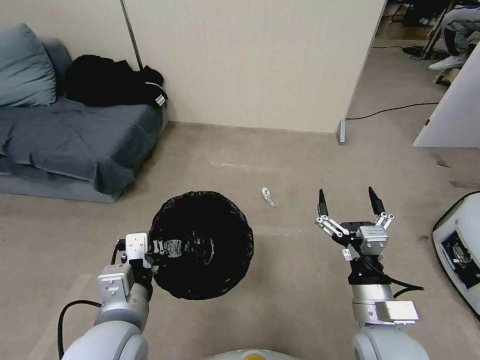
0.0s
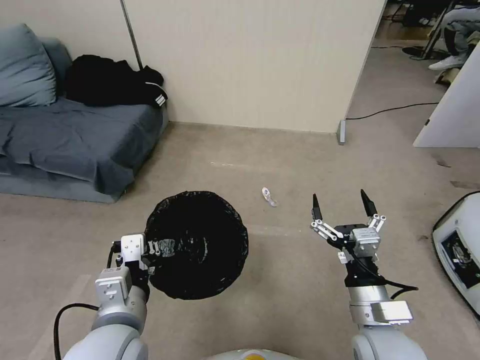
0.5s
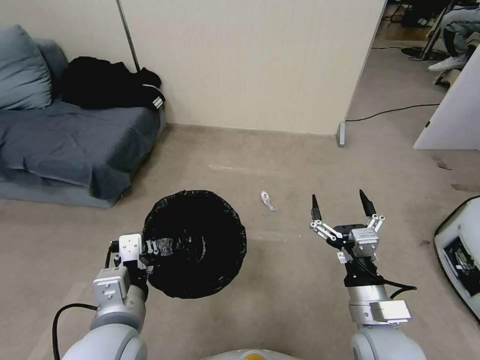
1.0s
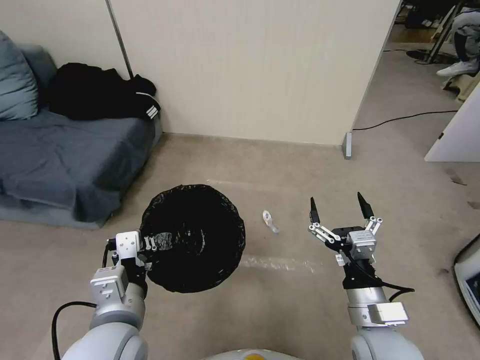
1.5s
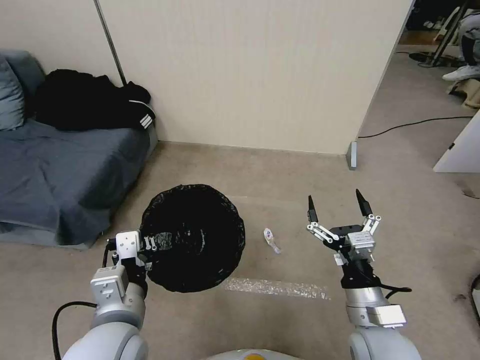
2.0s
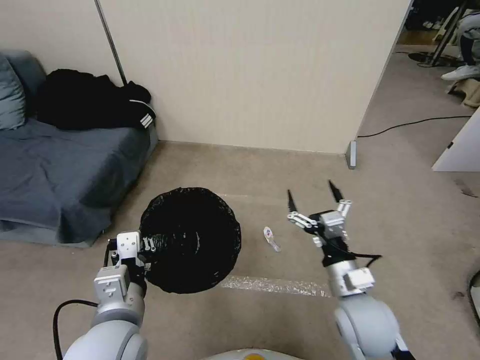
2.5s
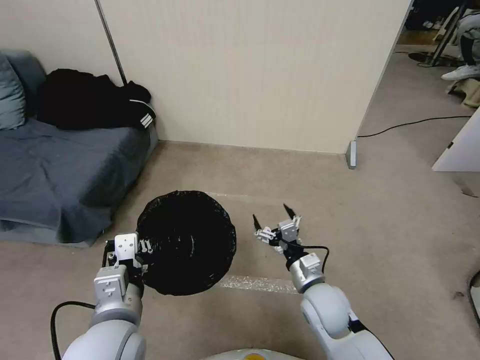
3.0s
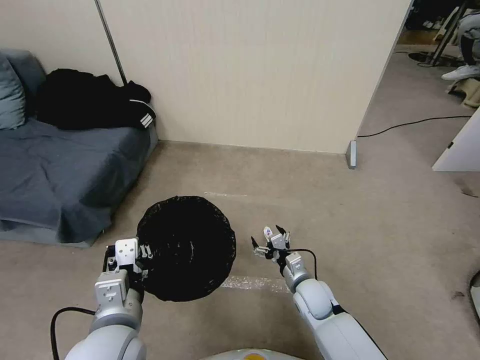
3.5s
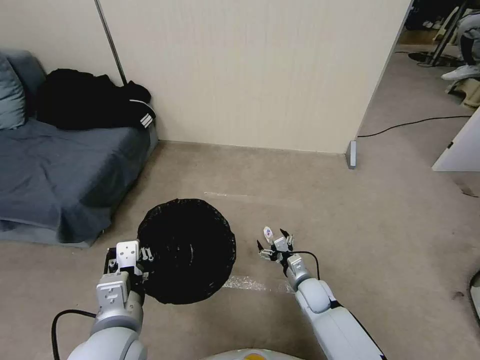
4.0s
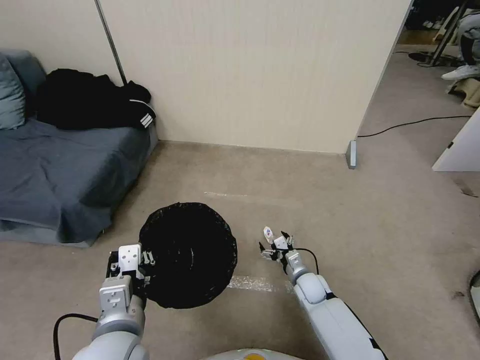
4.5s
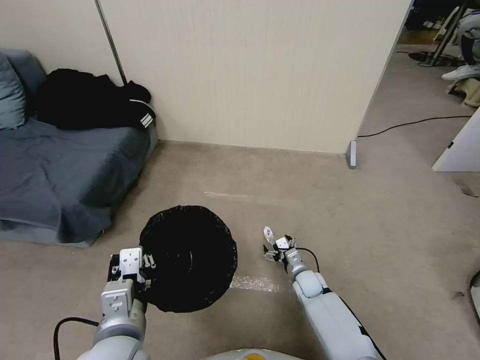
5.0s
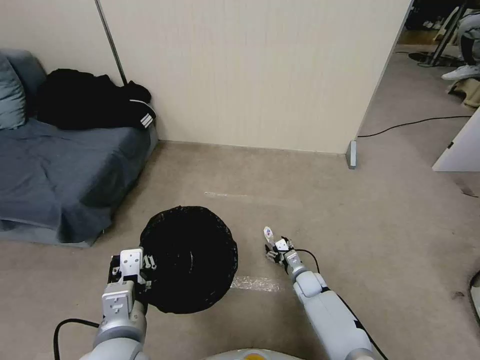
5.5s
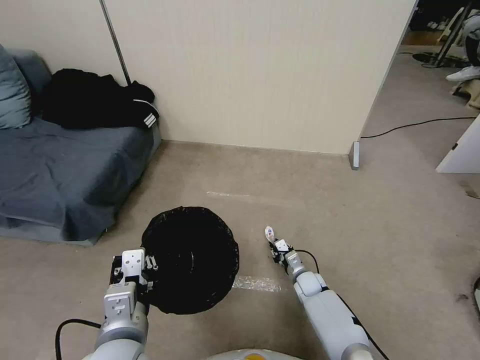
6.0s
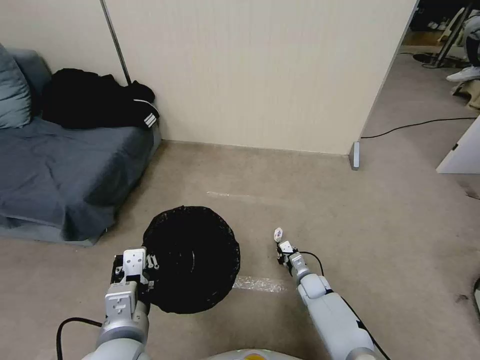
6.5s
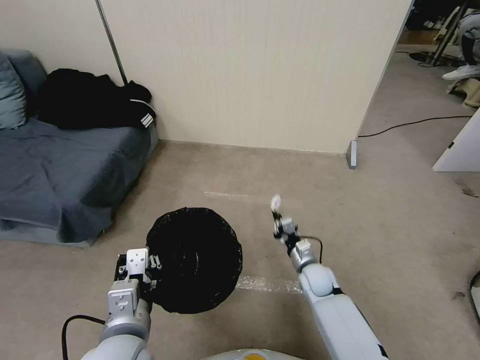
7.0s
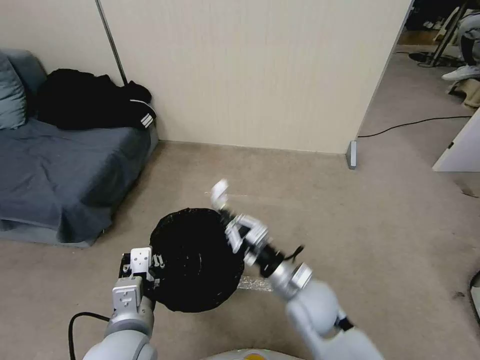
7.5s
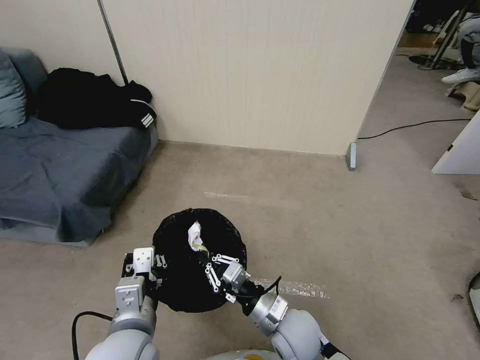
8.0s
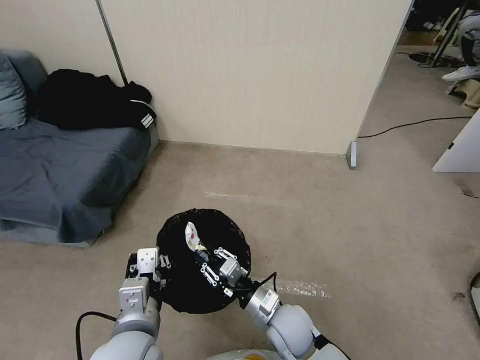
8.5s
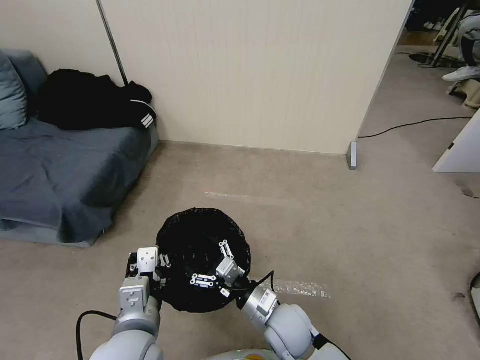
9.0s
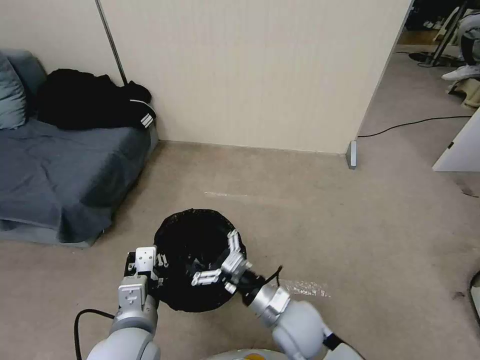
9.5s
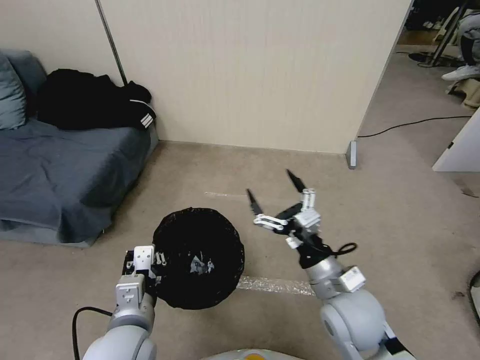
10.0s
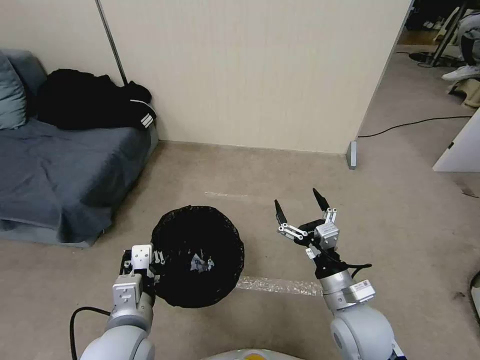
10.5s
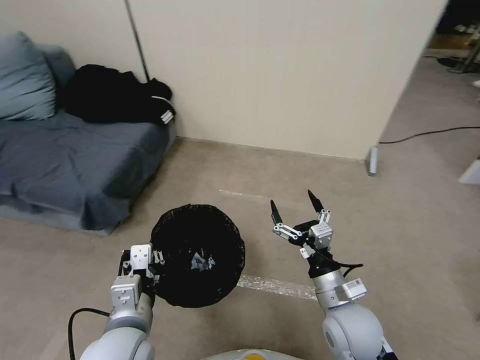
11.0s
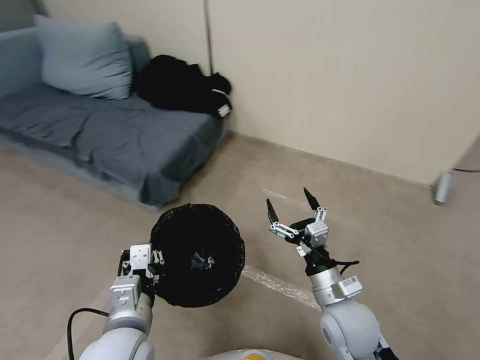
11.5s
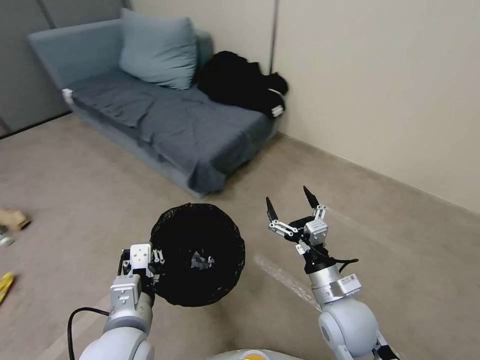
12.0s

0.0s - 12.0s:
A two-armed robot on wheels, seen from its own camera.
Task of the whole recording: Pick up the trash bin, then pick up the garbage from the floor and place it into the trash bin.
2.0s - 4.0s: The right gripper heads downward and forward, covering roughly 25 cm.
4.0s - 6.0s: The right gripper travels downward by about 5 cm, and closes up.
6.0s - 8.0s: The right gripper moves upward, backward and to the left, about 25 cm.
8.0s - 10.0s: The right gripper travels upward and to the right by some 15 cm, and opens its fingers.
10.0s - 12.0s: The right gripper travels downward by approximately 5 cm.

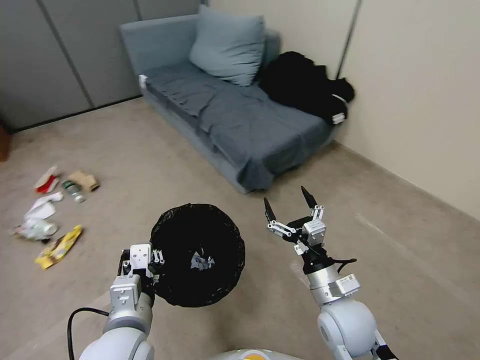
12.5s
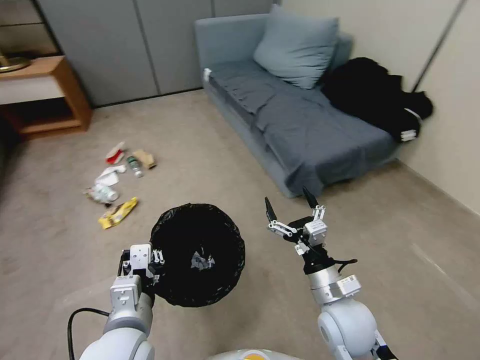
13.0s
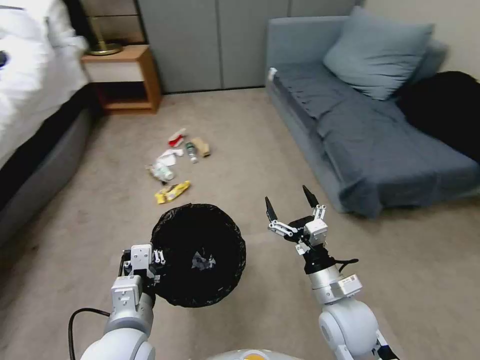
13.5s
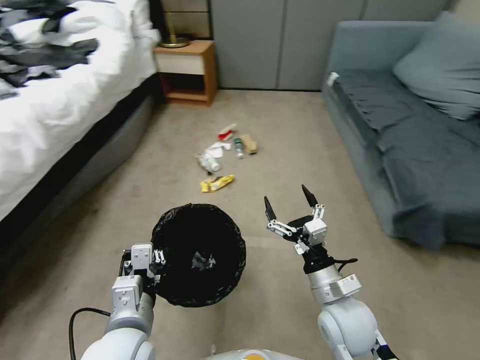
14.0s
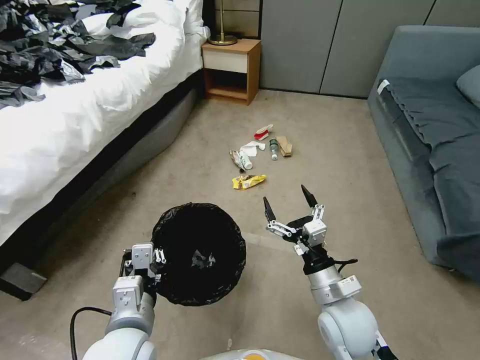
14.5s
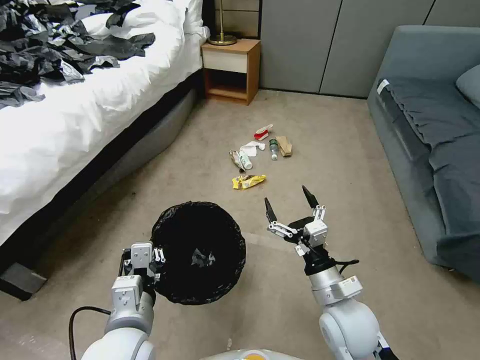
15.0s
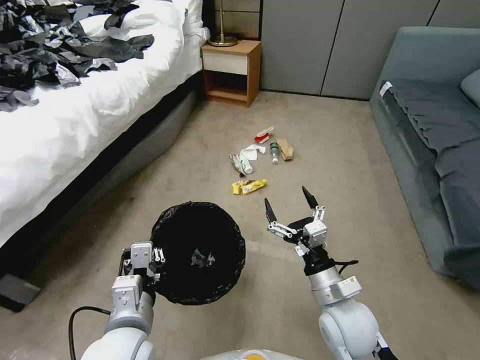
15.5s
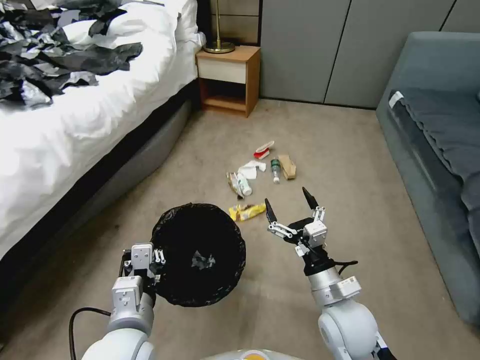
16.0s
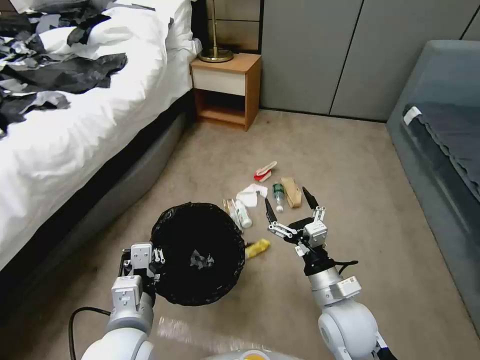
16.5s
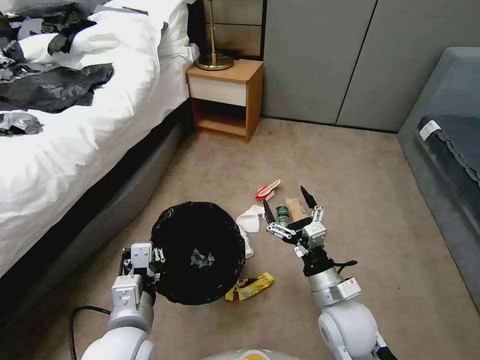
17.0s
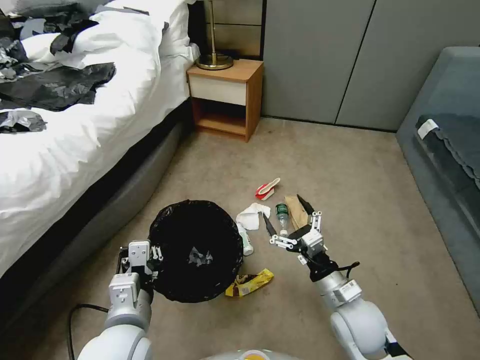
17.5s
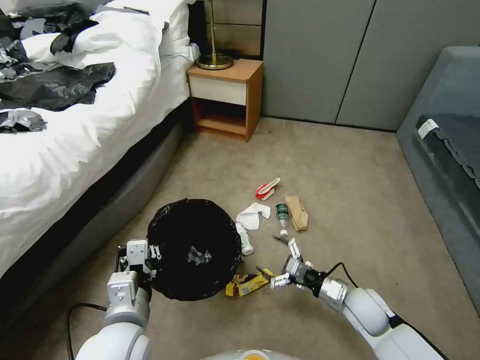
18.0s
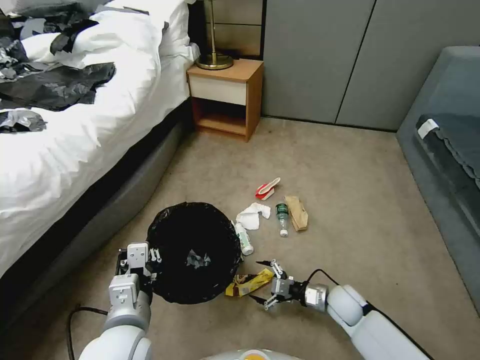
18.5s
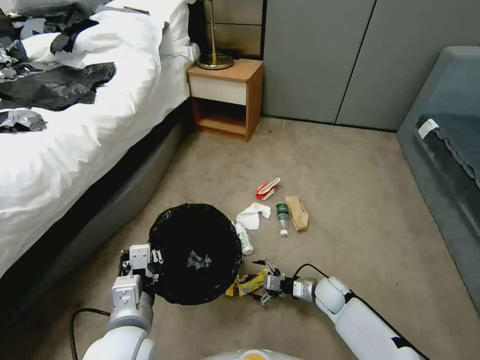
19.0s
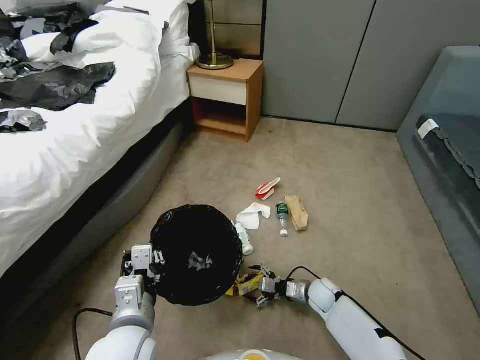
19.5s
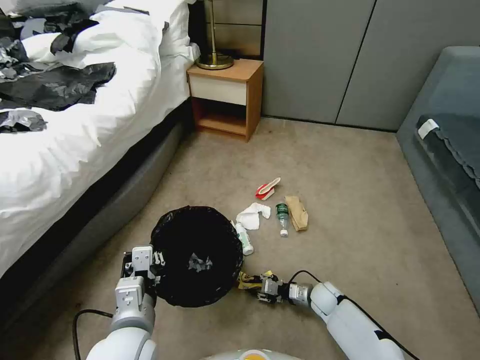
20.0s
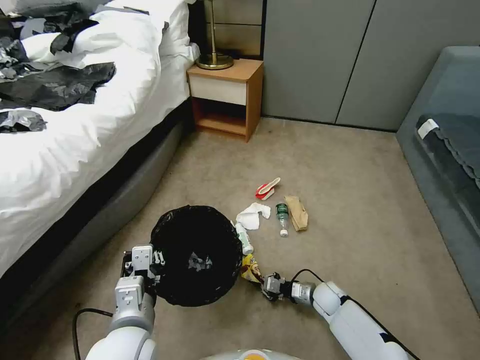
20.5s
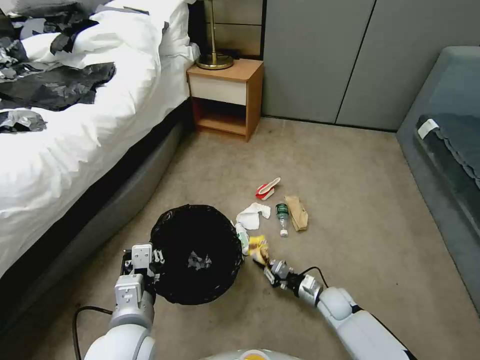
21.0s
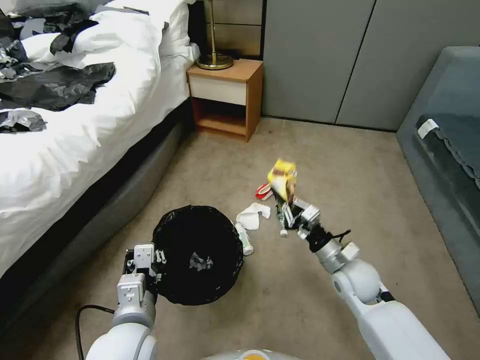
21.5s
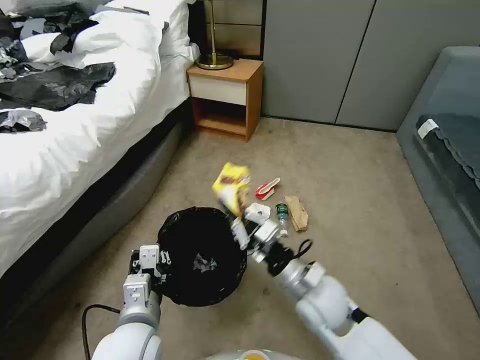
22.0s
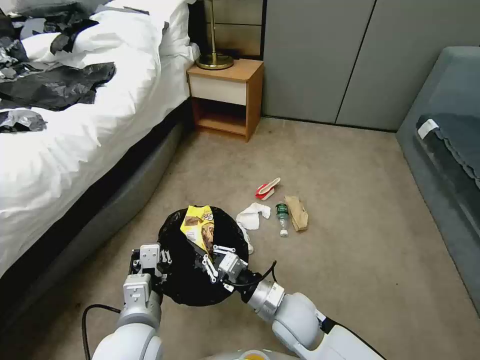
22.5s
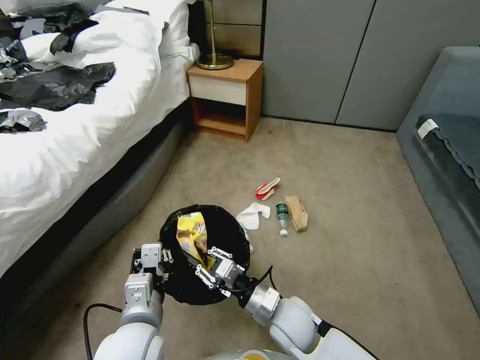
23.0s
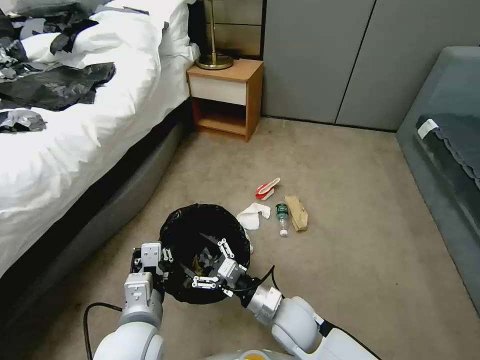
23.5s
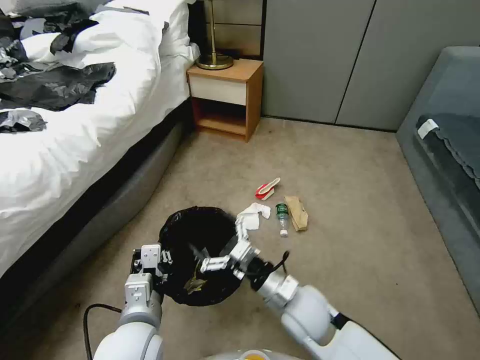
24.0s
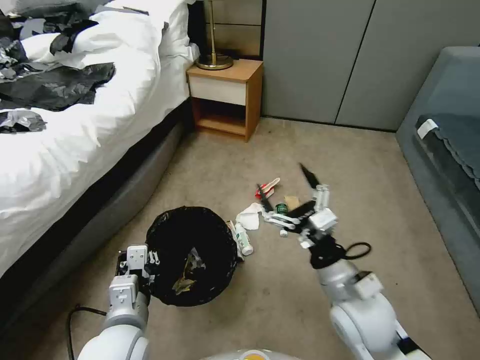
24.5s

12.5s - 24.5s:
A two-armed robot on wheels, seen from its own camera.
Task of the whole recording: Pick up the trash bin, then pick up the garbage from the floor and place it into the trash bin.
16.5s - 18.5s: The right gripper moves downward, forward and to the right, some 20 cm.
18.5s - 20.5s: The right gripper heads downward, covering approximately 5 cm, and closes up.
20.5s - 22.5s: The right gripper heads upward, to the left and backward, covering some 25 cm.
22.5s - 24.5s: The right gripper moves upward and to the right, about 15 cm, and opens up.

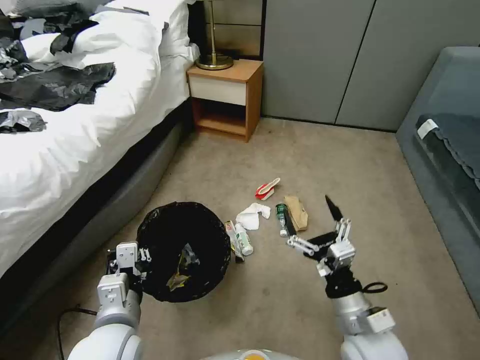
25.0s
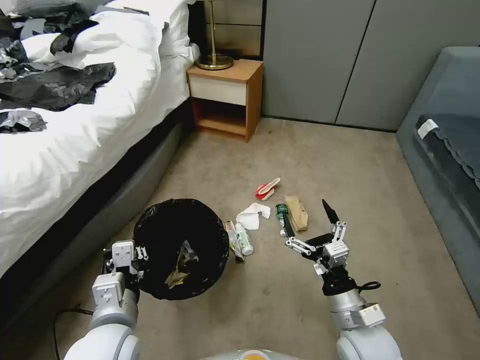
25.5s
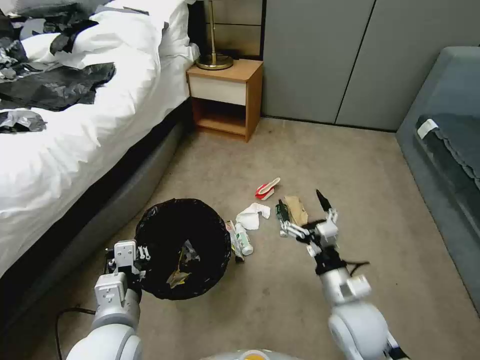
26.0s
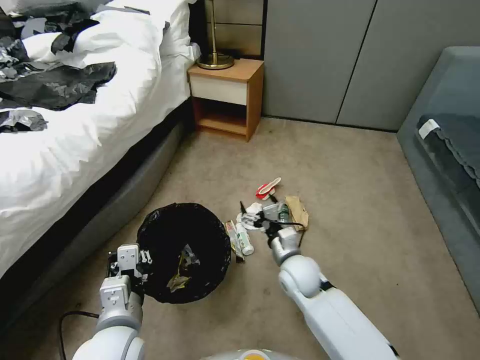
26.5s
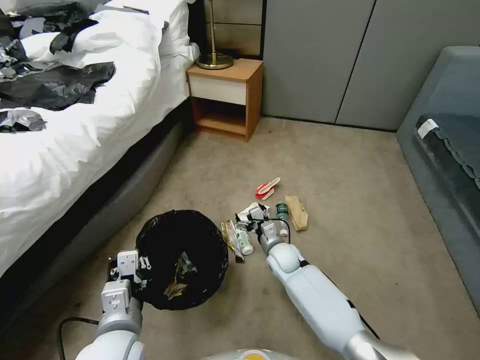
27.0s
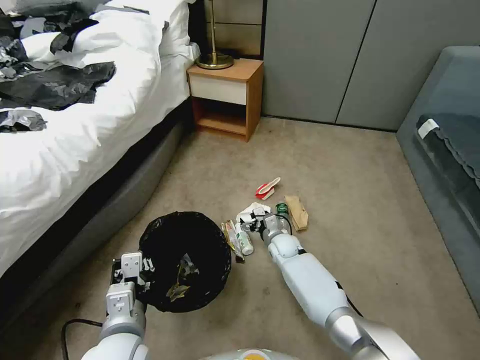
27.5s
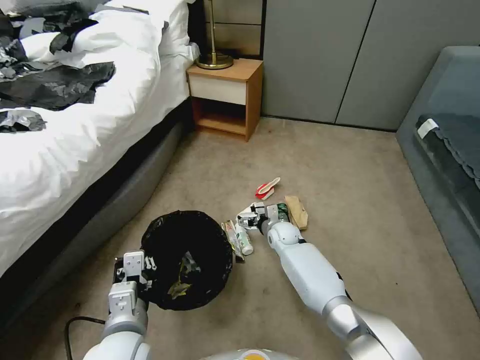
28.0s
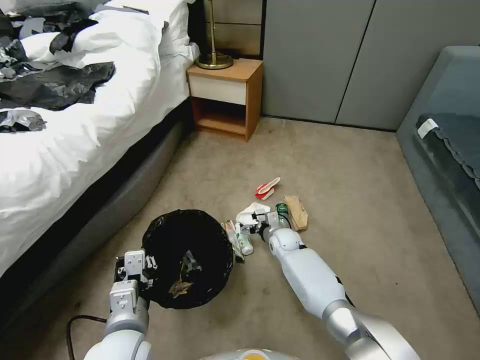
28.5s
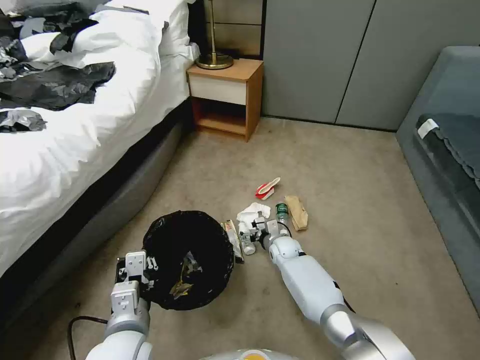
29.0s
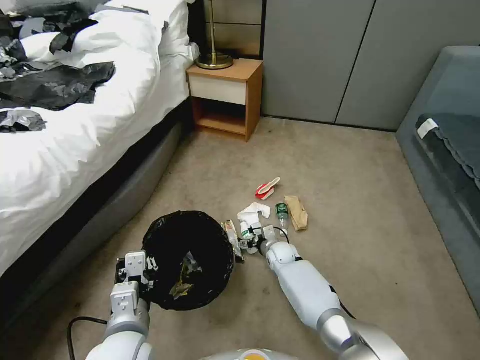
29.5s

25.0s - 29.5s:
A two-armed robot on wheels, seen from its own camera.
Task of the whole recording: Pick up the trash bin, then pick up the garbage from the floor and place it into the trash bin.
25.0s - 27.0s: The right gripper heads forward, downward and to the left, covering approximately 30 cm.
27.0s - 29.5s: The right gripper ends up roughly 5 cm from where it was.
